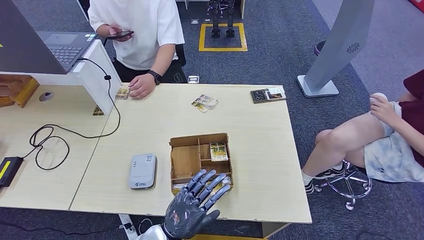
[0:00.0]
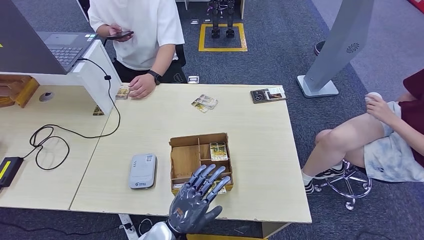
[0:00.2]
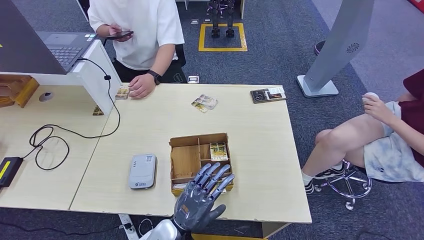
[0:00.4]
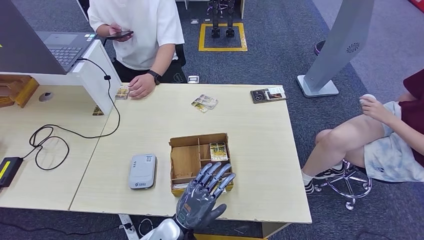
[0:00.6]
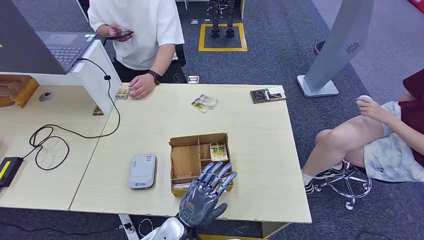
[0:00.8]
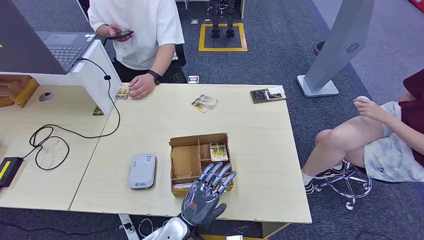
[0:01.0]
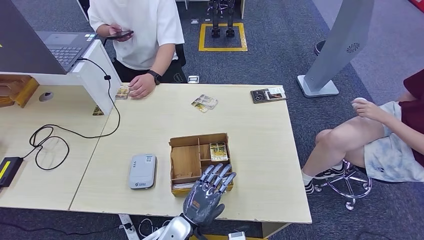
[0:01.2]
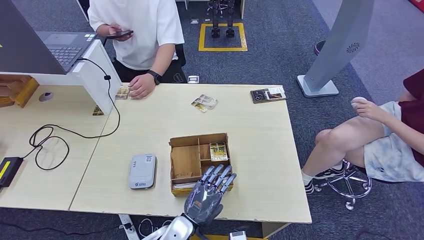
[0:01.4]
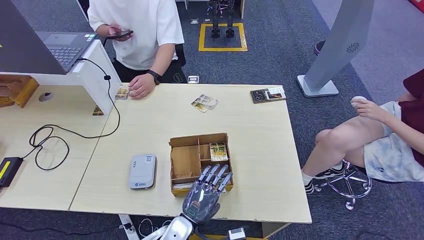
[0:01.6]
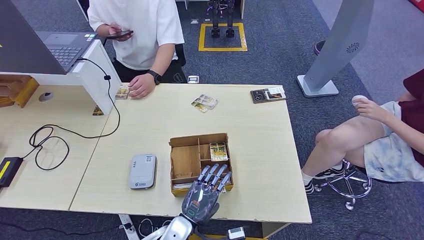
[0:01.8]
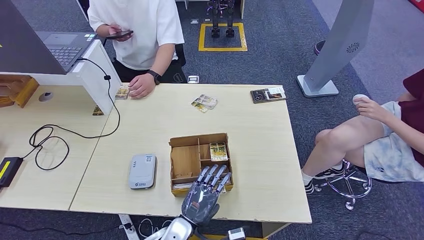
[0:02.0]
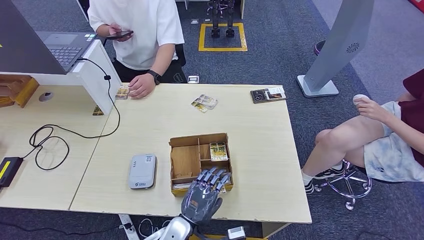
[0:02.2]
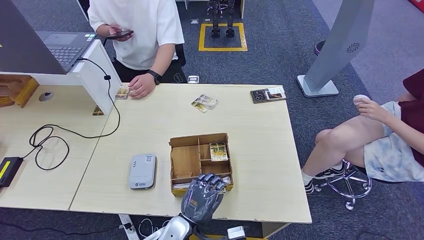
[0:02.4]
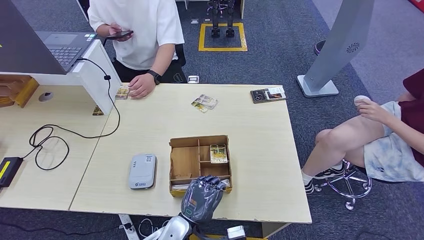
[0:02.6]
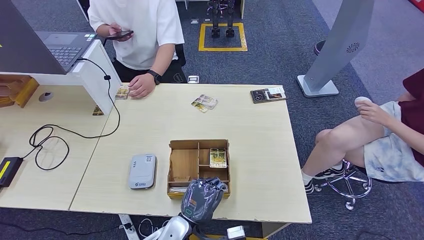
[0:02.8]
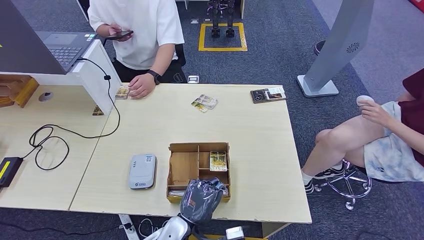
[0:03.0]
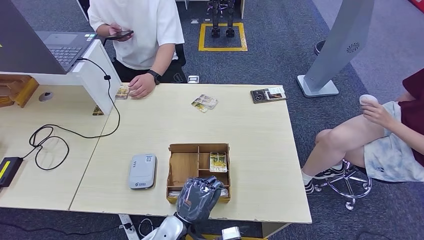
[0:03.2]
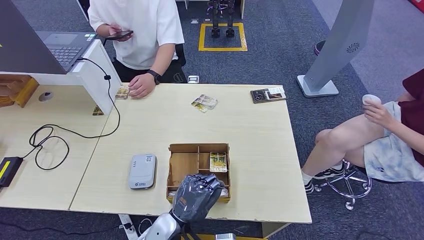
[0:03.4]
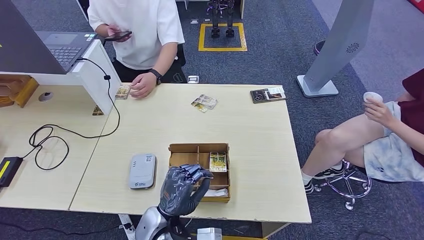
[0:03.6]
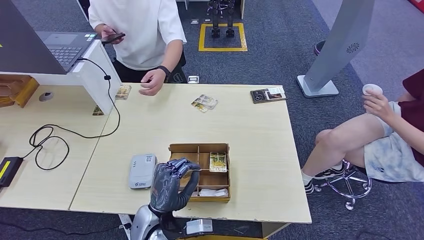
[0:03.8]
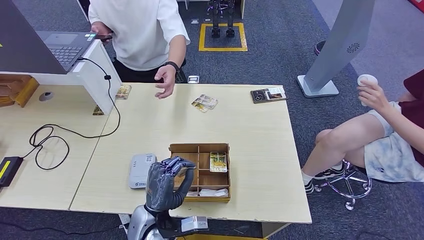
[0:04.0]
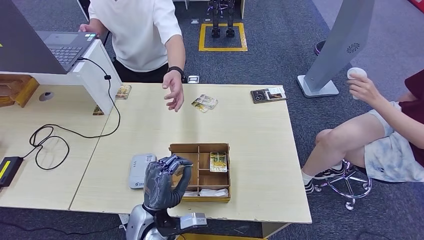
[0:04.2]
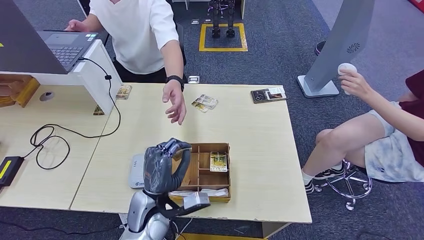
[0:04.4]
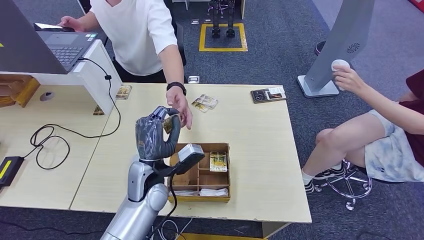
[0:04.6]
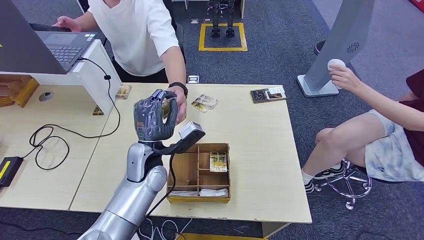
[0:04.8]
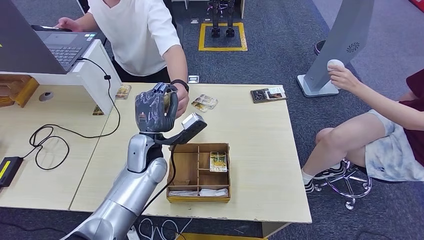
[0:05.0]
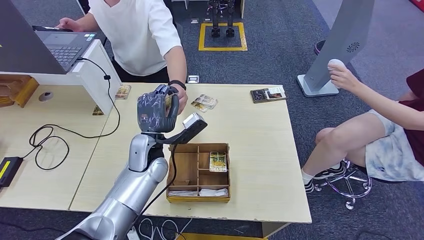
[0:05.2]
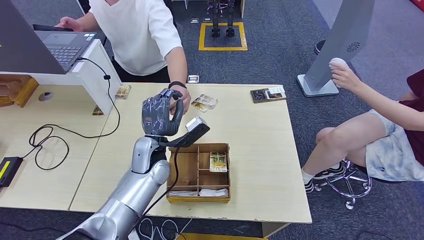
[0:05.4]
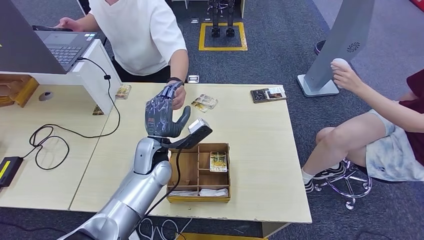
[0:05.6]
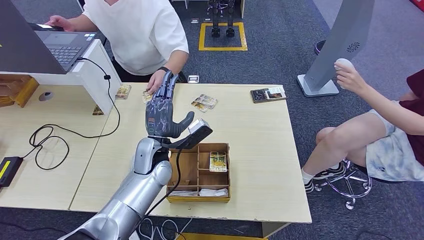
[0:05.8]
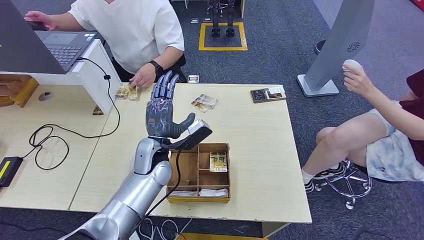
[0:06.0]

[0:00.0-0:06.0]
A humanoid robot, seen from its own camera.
Step, 0:00.0 to 0:03.2: Pick up the room key from the key card box.
Step, 0:03.6 to 0:06.0: Hand the room key to the person.
0:00.0 to 0:01.6: The left hand travels to the right by some 5 cm.
0:01.6 to 0:03.0: The hands make only small movements.
0:03.0 to 0:04.4: The left hand moves to the left and upward, roughly 10 cm.
0:04.4 to 0:06.0: The left hand shifts roughly 15 cm forward and upward.
